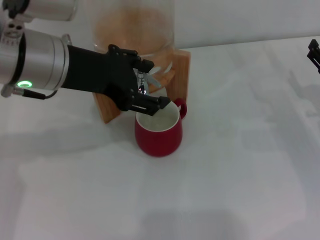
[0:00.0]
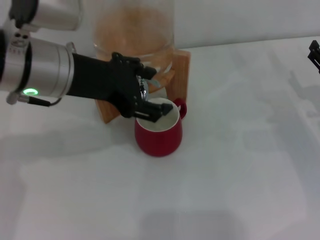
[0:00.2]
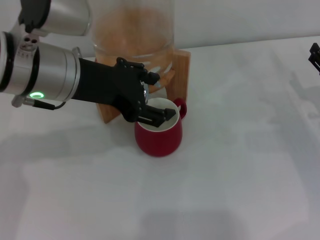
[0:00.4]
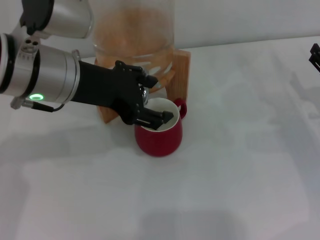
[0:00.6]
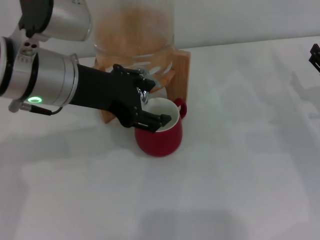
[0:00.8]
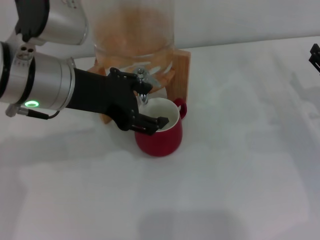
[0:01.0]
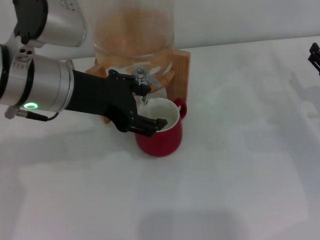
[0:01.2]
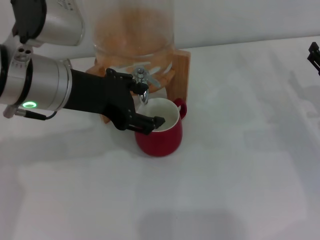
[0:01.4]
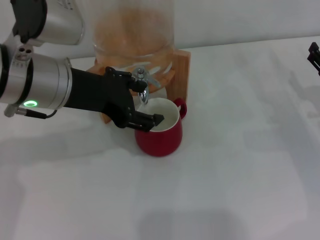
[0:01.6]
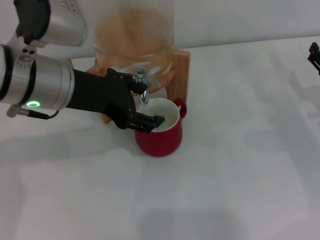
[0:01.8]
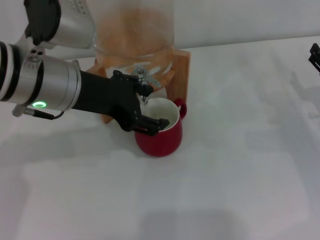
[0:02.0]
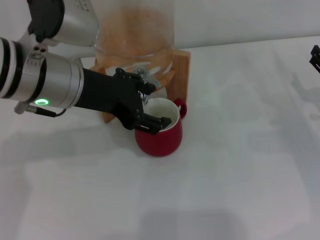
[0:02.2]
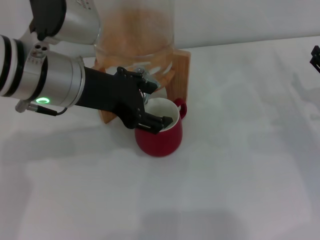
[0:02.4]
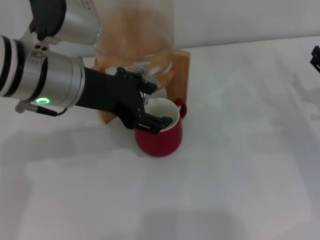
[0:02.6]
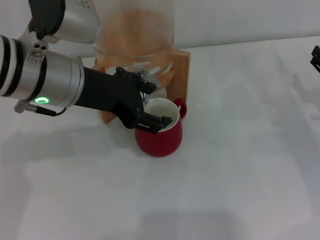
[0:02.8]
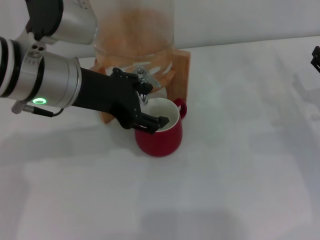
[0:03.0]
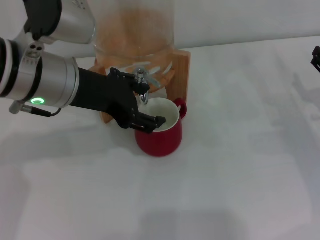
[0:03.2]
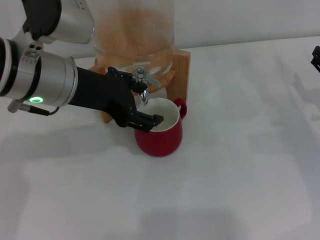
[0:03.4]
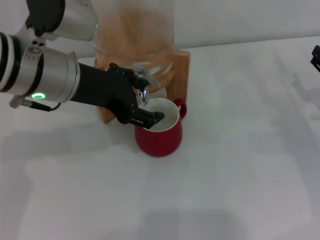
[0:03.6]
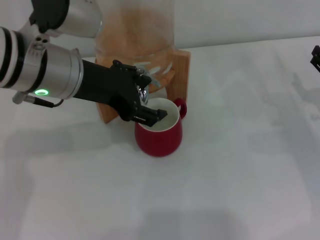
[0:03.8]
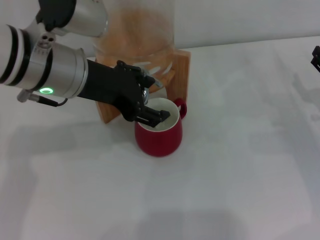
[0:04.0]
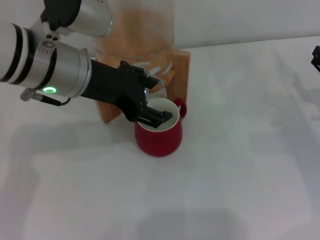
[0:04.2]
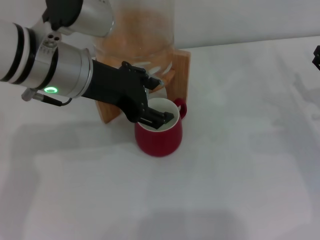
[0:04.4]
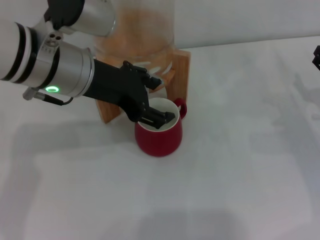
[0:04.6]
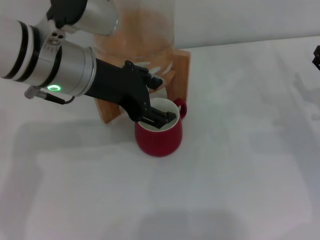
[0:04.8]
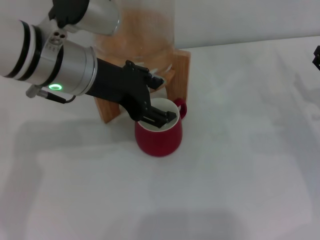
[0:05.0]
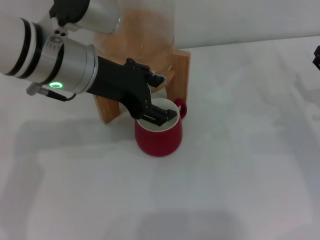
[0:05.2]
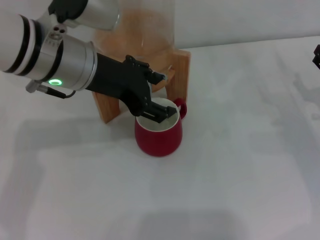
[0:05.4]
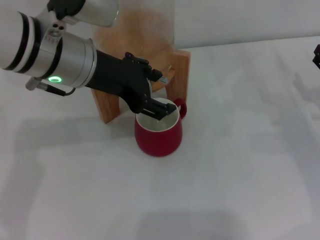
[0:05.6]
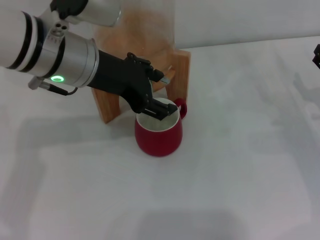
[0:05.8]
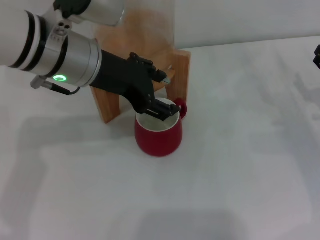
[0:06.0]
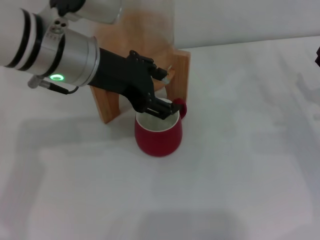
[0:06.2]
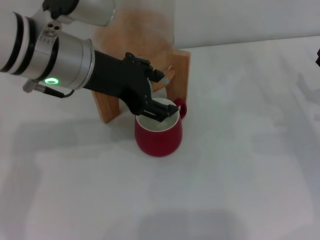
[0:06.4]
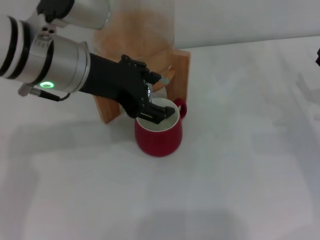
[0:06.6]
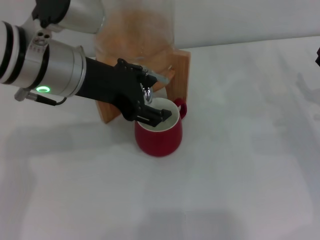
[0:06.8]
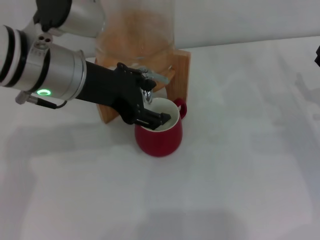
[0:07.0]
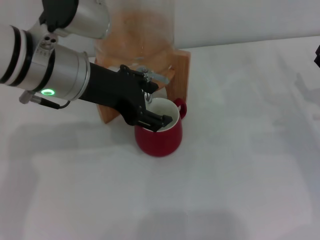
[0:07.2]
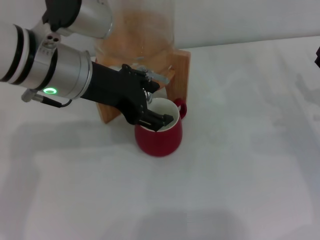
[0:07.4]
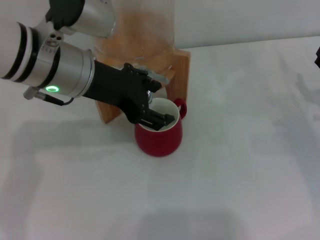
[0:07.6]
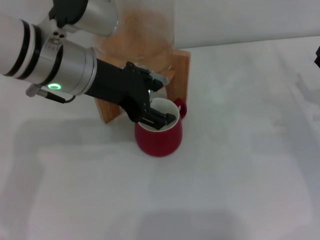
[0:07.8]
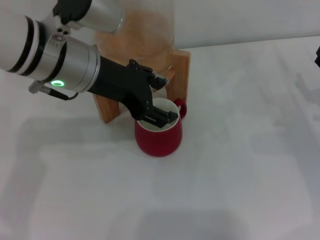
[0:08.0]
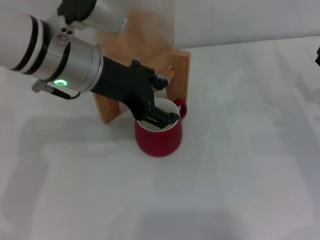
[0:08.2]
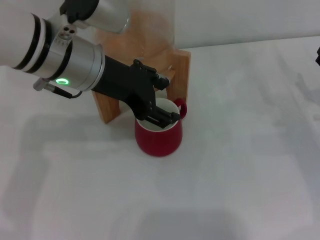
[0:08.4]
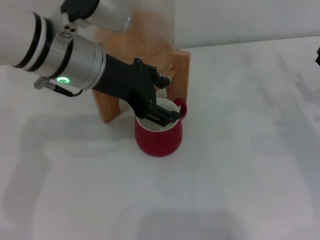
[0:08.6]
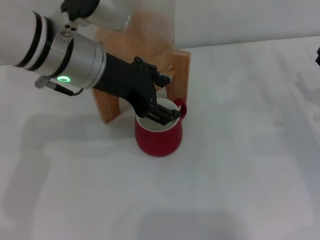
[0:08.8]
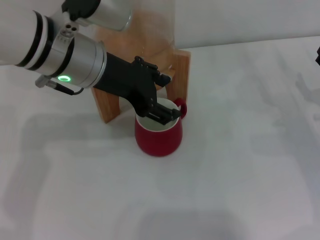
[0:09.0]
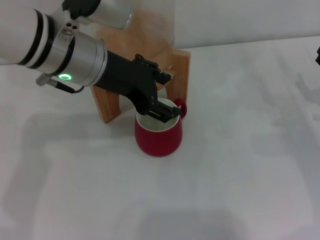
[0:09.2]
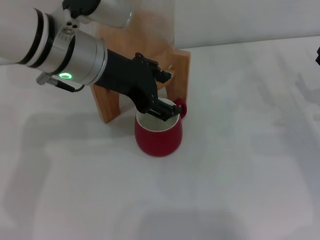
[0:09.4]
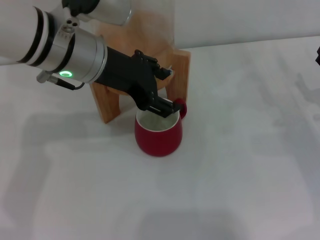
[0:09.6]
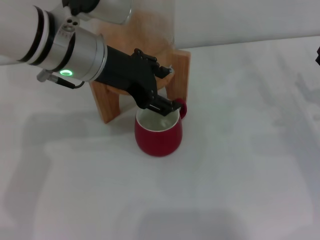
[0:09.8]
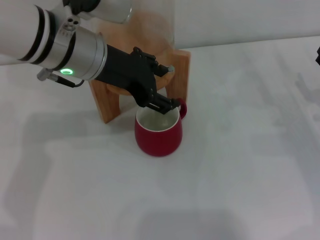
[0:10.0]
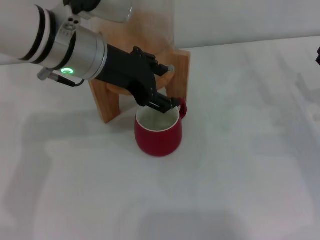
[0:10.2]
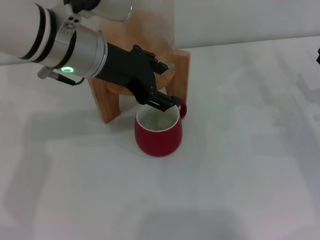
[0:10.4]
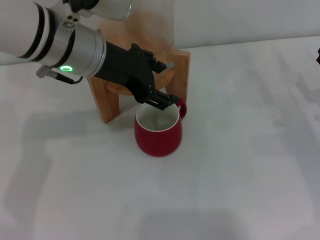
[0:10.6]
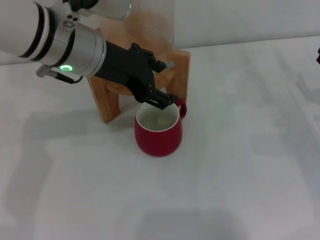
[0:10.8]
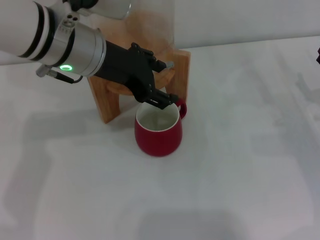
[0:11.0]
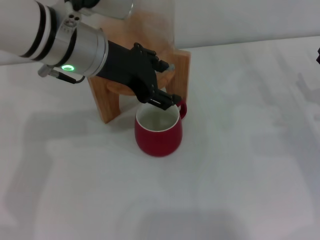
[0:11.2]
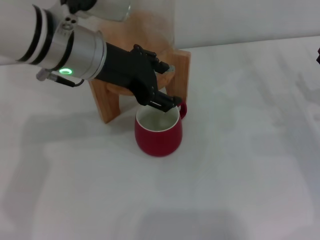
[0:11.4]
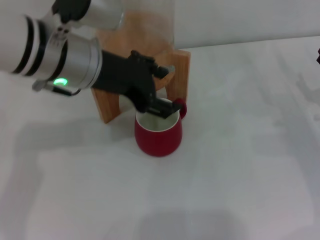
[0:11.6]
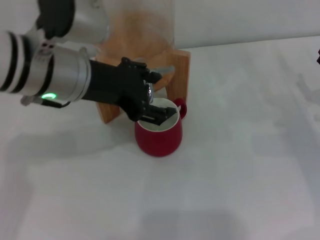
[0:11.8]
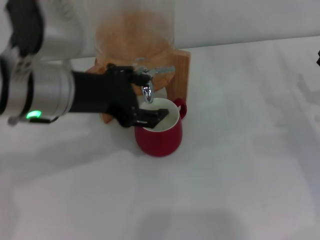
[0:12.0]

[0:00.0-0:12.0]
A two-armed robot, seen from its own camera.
Task of the whole recording: the right gripper pick up the red cup and place it horizontally under the faucet, the left gripper turn on the faucet to fill the cup, and then turn off the faucet.
Step, 0:00.0 to 0:11.8: Close the dispenser valve with the left gripper.
0:00.0 to 0:01.6: There are only small adjustments of the grippers.
0:01.6 to 0:03.0: Both grippers stay about where they are.
0:03.0 to 0:09.0: There are only small adjustments of the grippers.
0:09.0 to 0:10.4: Both grippers stay about where they are.
0:10.4 to 0:12.0: The left gripper shifts approximately 5 cm backward.

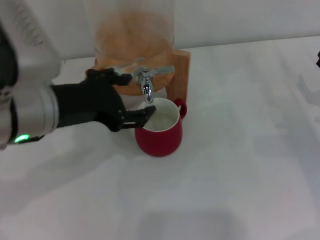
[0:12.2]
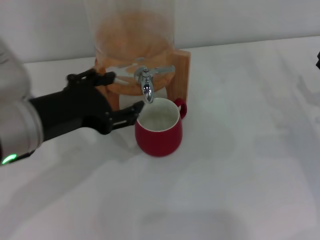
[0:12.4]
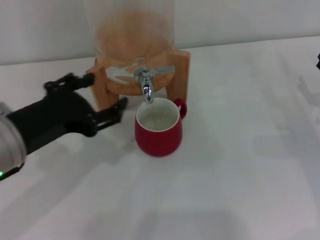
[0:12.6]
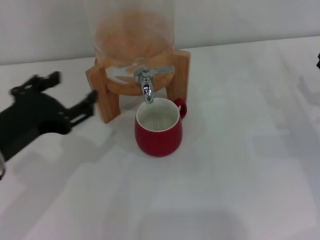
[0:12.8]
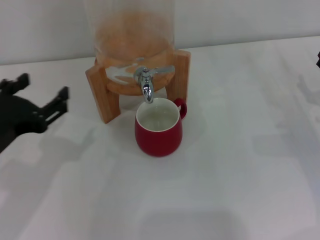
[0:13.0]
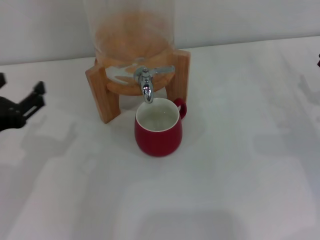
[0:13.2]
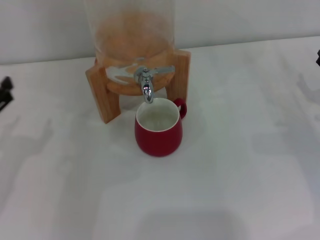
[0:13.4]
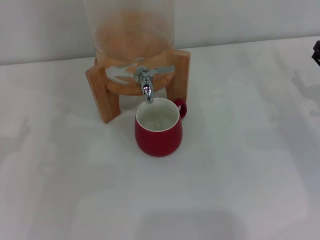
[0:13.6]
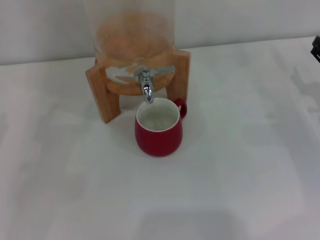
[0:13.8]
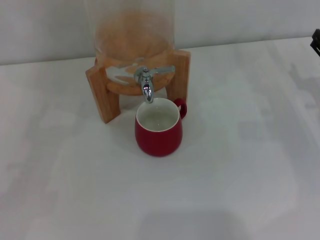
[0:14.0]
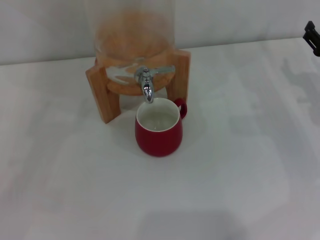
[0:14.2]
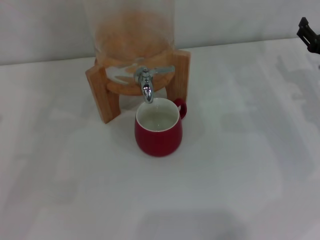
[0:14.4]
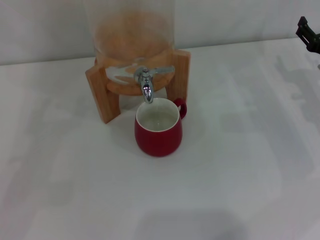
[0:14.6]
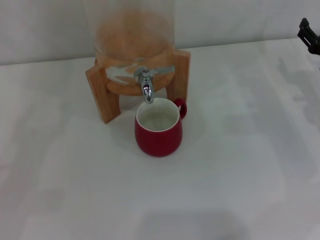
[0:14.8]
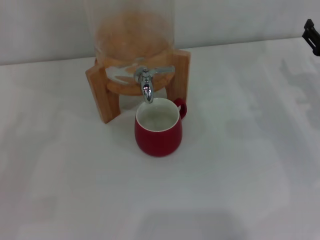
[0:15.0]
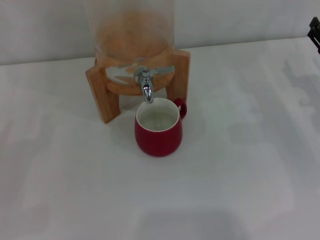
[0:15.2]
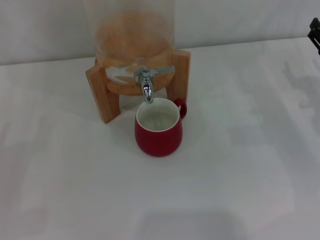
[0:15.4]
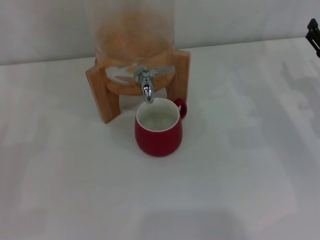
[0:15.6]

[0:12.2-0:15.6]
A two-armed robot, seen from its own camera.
Task of the whole recording: the right gripper pick up the red cup and place it horizontally under the faucet, the left gripper turn on the faucet to fill the cup, and then turn off the faucet.
0:12.2 to 0:13.8: The left gripper moves to the left and downward, some 20 cm.
